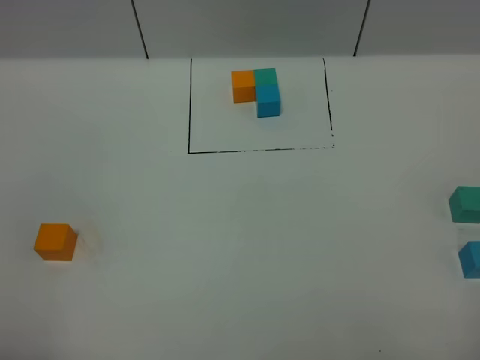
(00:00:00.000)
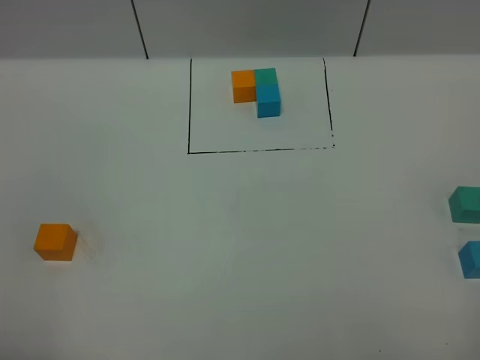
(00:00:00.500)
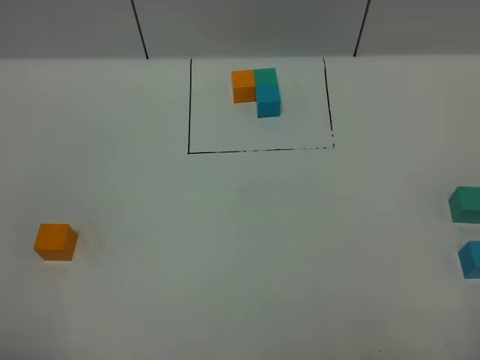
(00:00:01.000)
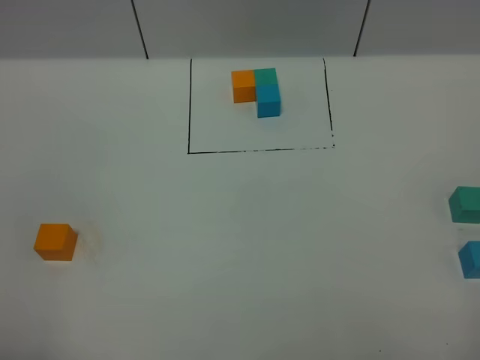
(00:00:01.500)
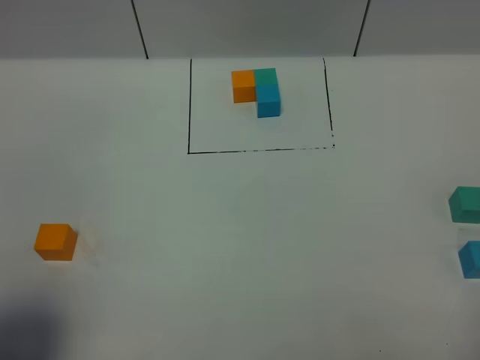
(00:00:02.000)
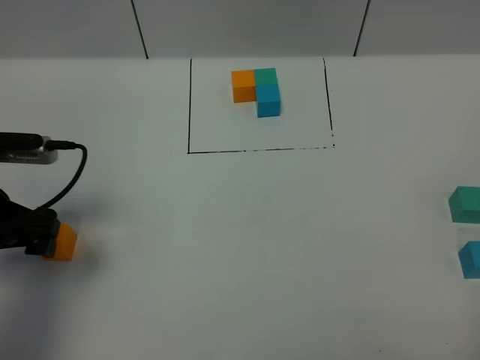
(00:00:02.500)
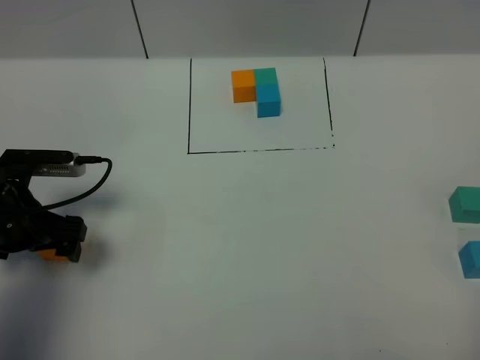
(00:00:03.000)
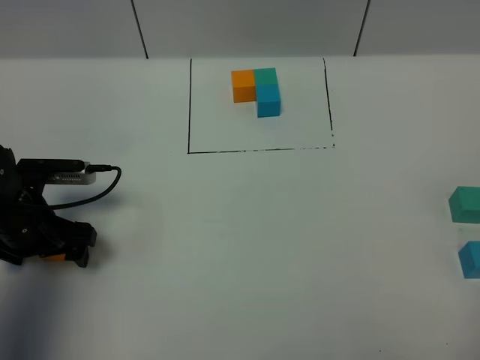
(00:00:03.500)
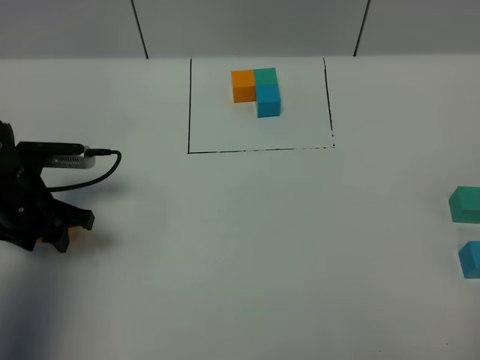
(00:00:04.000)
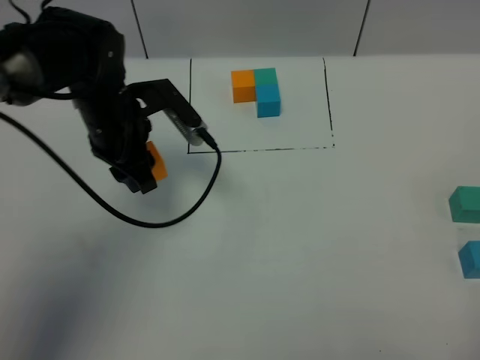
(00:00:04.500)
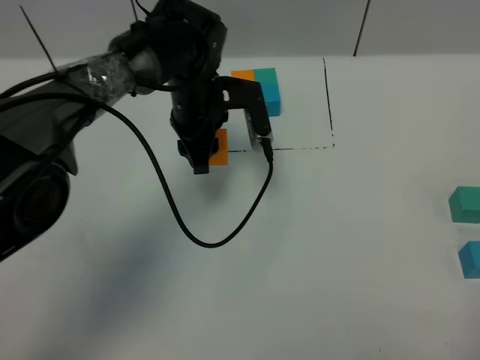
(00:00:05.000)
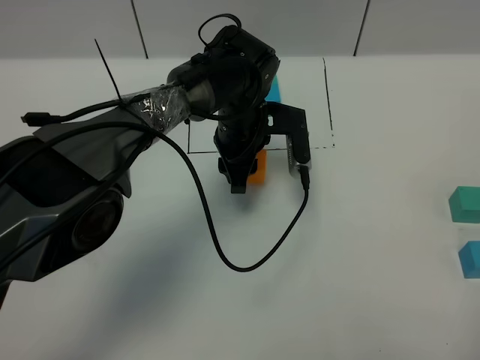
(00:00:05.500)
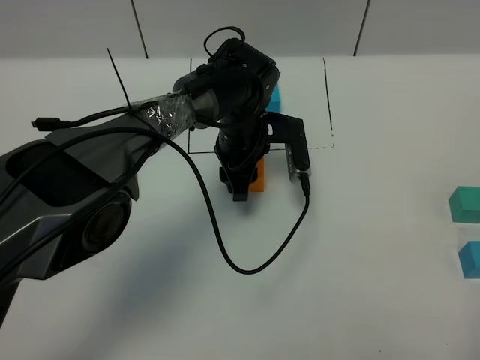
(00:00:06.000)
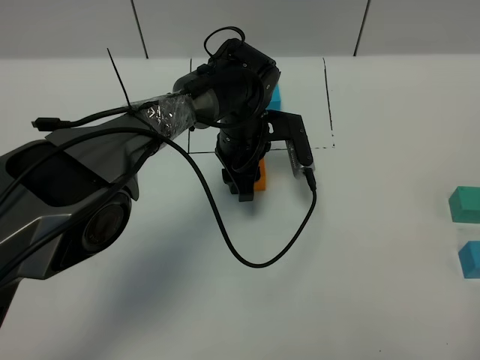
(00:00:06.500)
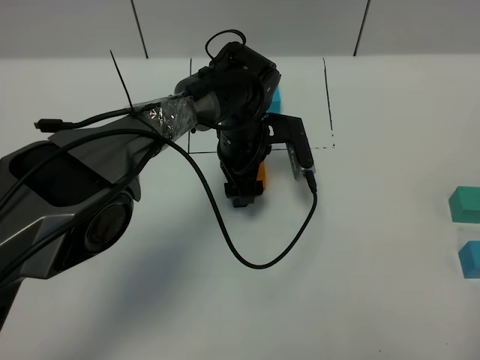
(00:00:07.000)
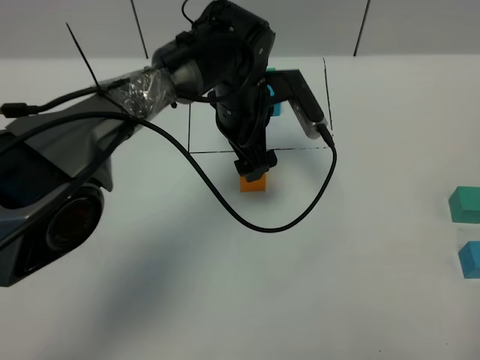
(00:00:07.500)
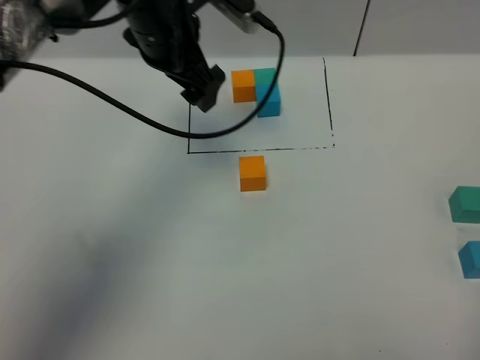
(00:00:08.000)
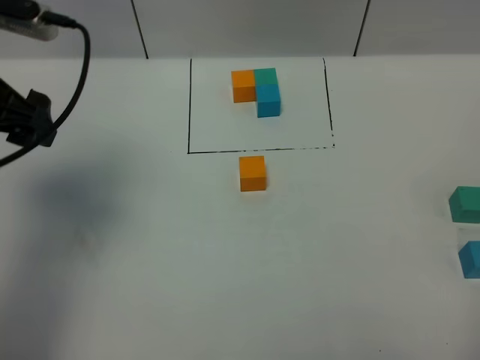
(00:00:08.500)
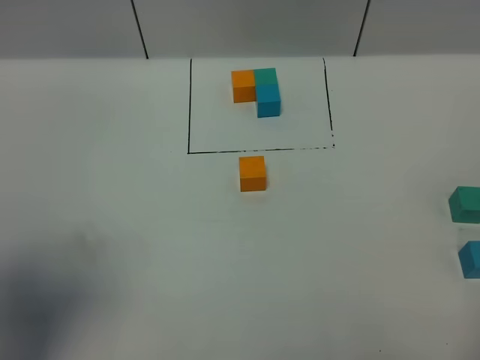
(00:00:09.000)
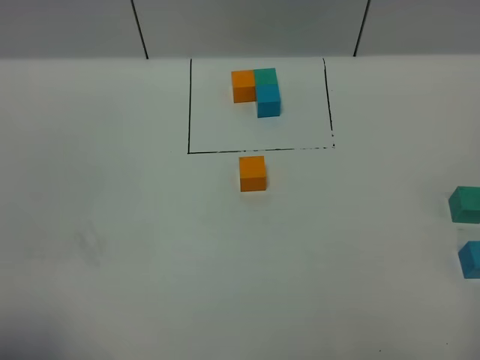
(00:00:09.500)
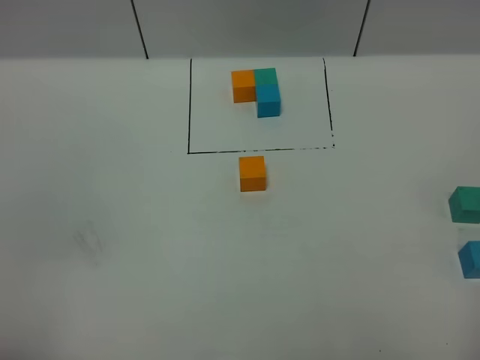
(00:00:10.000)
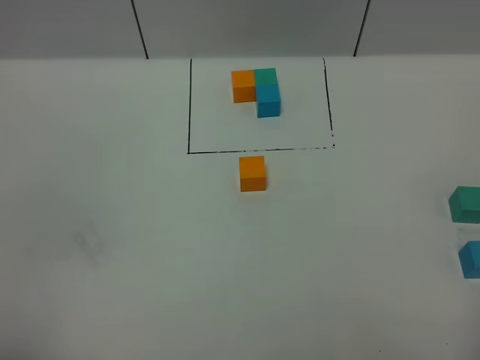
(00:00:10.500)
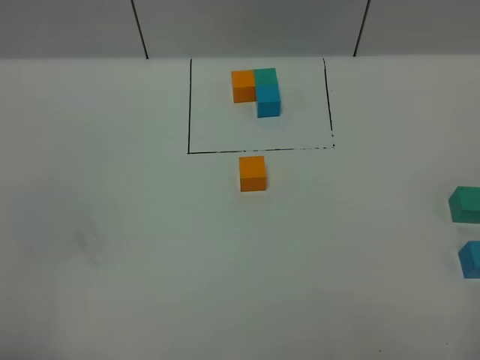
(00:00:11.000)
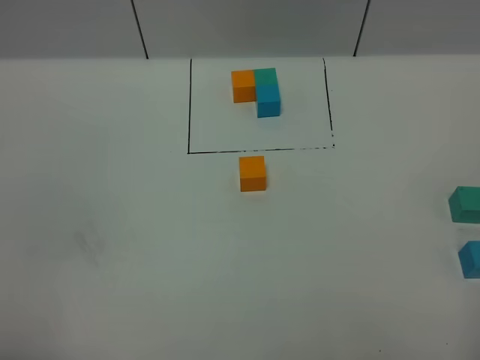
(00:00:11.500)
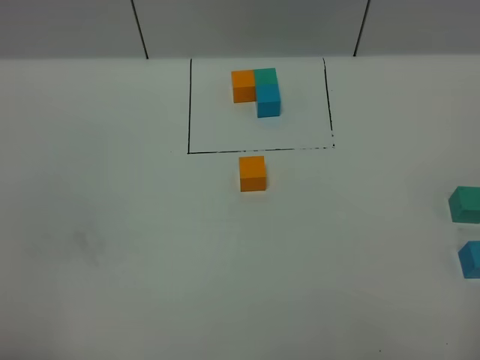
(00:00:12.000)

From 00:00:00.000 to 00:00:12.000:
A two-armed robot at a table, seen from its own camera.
Task of the whole recording: According to the building block template in front, assemble the scattered blocks together.
Step, from 00:00:00.000 to 00:00:07.000: Put the orange build block in the center of the table.
From 00:00:00.000 to 00:00:02.000: The left gripper heads forward, covering about 10 cm.
From 00:00:02.000 to 00:00:04.000: The left gripper travels forward and downward by approximately 25 cm, and closes.
From 00:00:04.000 to 00:00:06.000: The left gripper shifts roughly 30 cm to the right and forward.
From 00:00:06.000 to 00:00:08.000: The left gripper travels upward and to the left by about 20 cm, and opens.
From 00:00:08.000 to 00:00:10.000: The left gripper moves backward and to the left, about 50 cm.

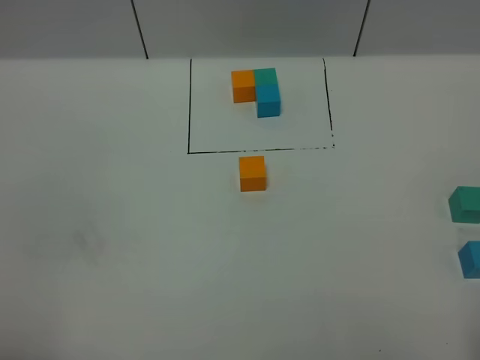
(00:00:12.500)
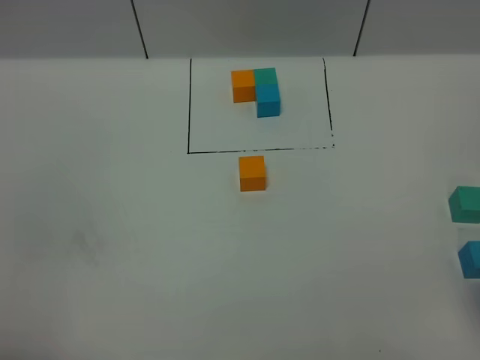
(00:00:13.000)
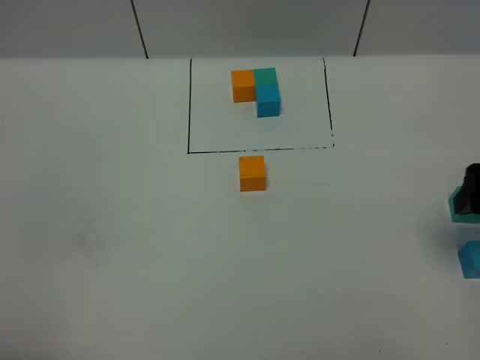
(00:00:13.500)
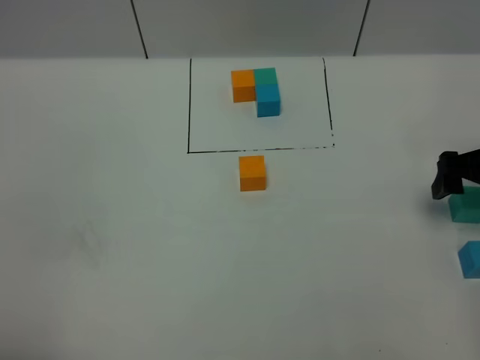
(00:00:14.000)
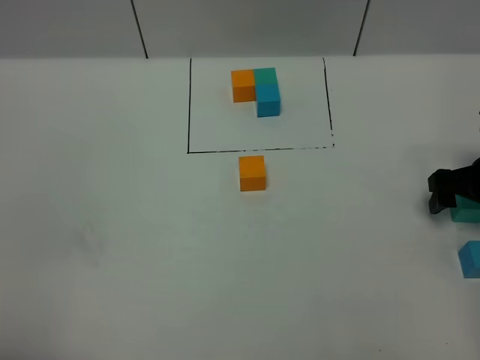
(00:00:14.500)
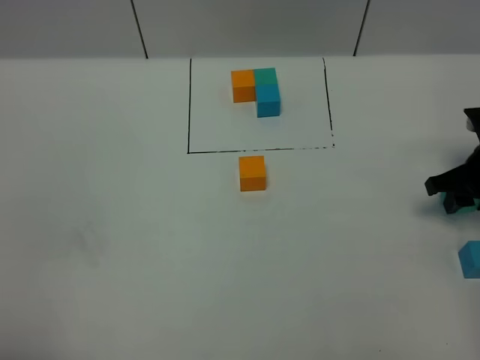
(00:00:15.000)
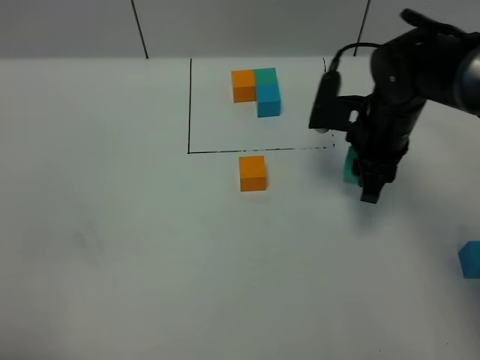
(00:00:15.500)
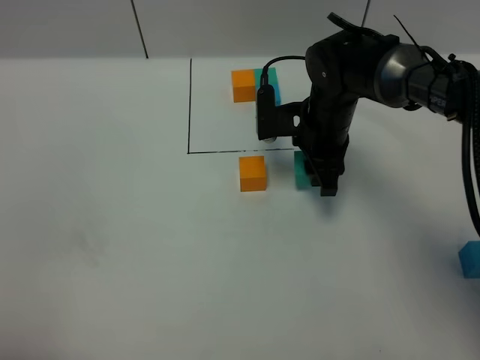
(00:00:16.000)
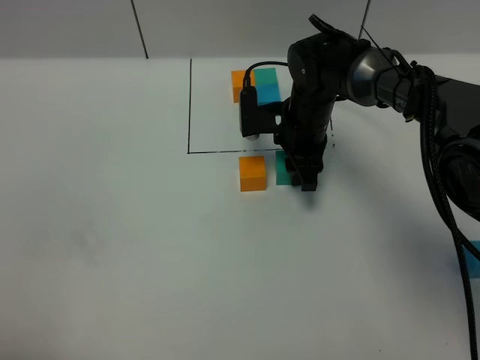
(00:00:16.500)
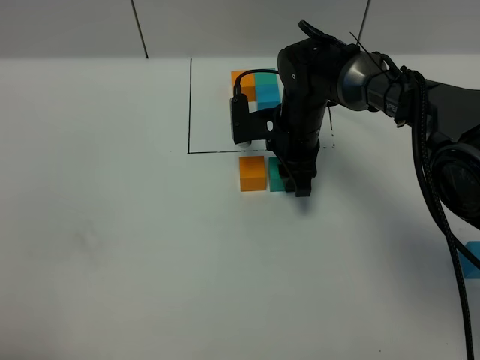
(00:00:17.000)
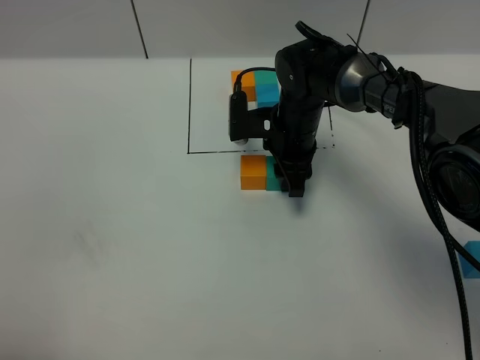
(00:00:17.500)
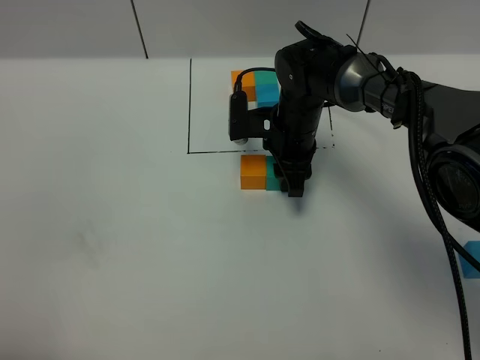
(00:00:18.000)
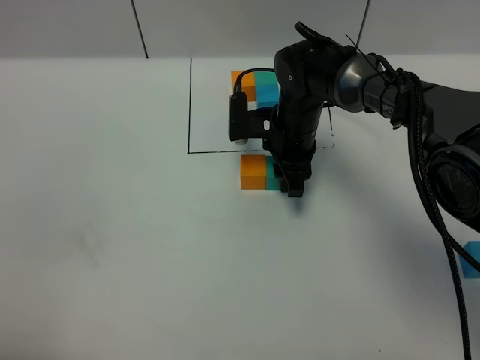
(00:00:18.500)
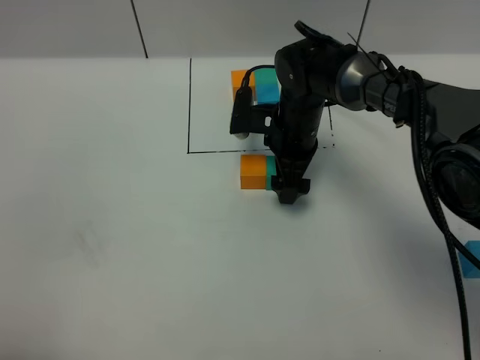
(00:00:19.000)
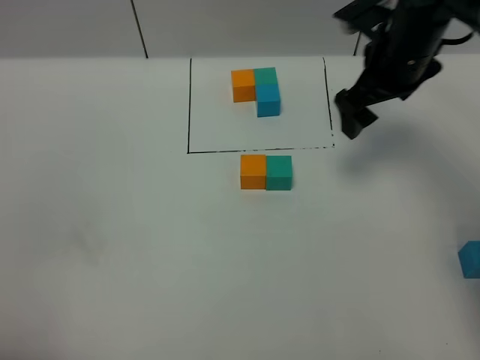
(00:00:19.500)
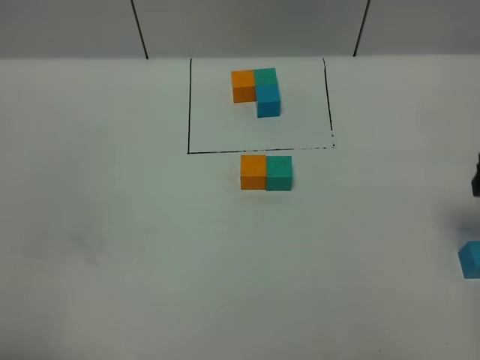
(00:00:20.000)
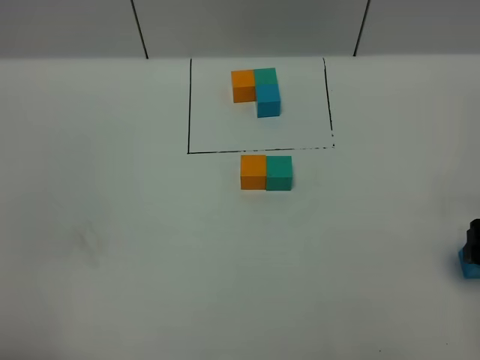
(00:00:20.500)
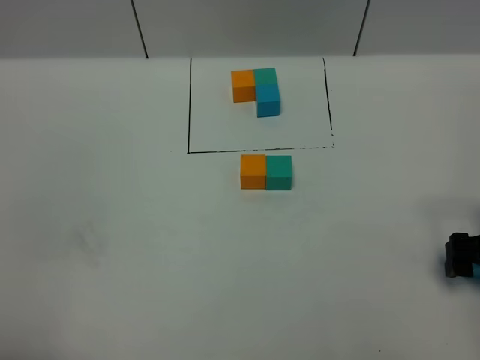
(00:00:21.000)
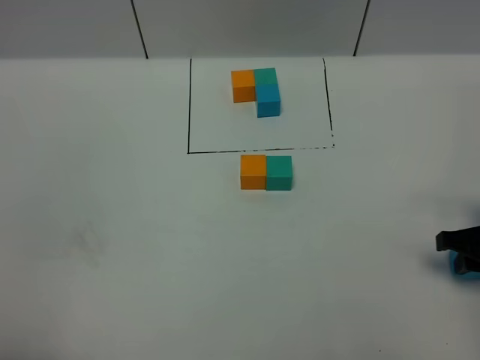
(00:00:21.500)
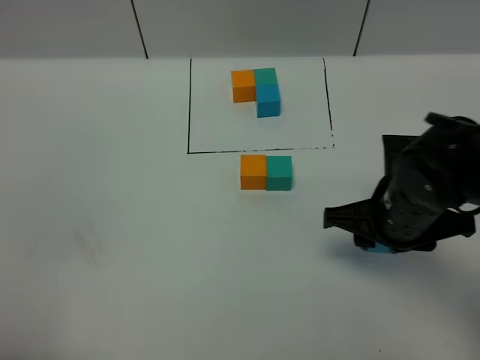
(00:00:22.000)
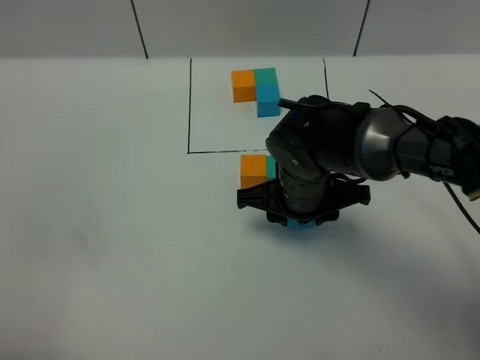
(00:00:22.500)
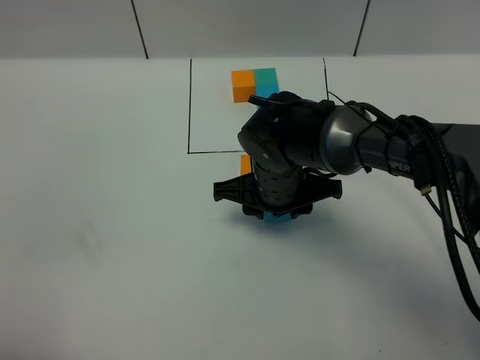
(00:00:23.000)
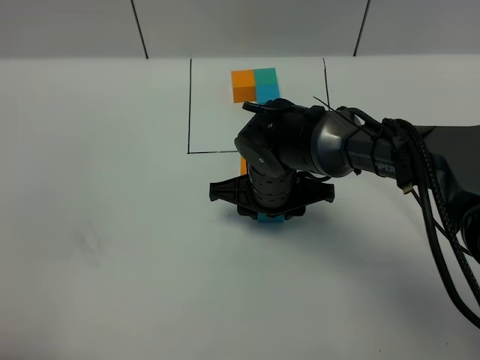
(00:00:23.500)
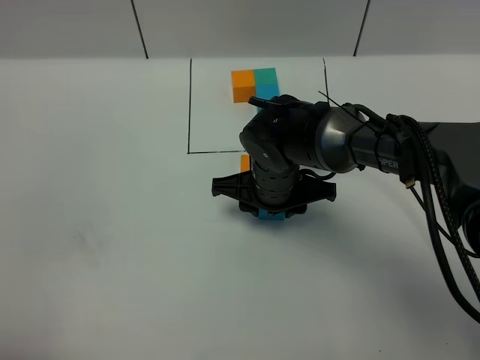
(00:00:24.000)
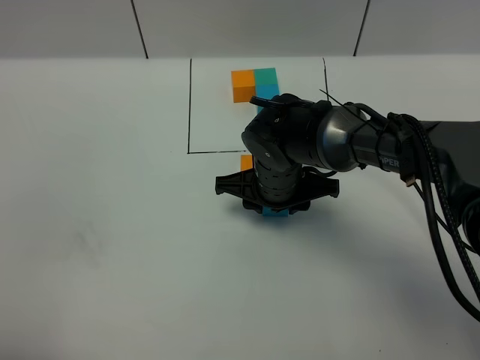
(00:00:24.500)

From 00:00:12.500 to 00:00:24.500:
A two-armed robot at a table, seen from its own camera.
Task of the whole recording: According to the building block template in front, assemble the scattered blocks together.
Step, from 00:00:12.500 to 00:00:19.000: Put the green build block on the right of the orange build block.
From 00:00:12.500 to 00:00:14.500: The right gripper heads forward and downward, covering approximately 35 cm.
From 00:00:14.500 to 00:00:16.500: The right gripper heads to the left and forward, covering about 25 cm, and closes up.
From 00:00:16.500 to 00:00:18.500: The grippers stay close to where they were, moving slightly.
From 00:00:18.500 to 00:00:20.500: The right gripper heads to the right and backward, covering some 35 cm, and opens.
From 00:00:20.500 to 00:00:22.500: The right gripper shifts roughly 25 cm to the left, and closes.
From 00:00:22.500 to 00:00:24.500: The grippers move only a little.

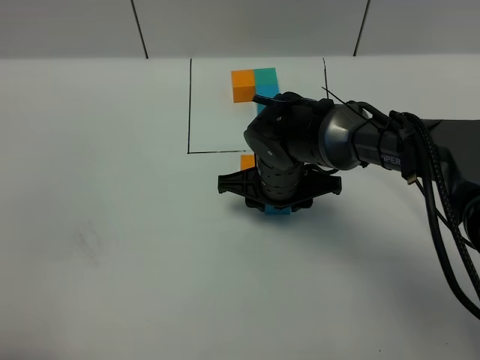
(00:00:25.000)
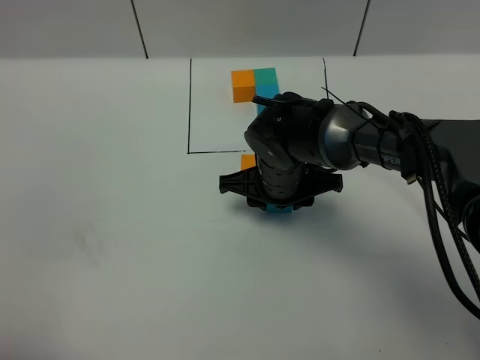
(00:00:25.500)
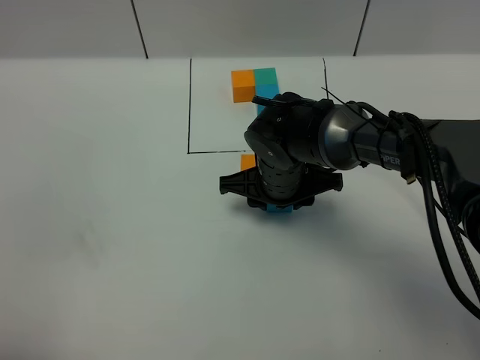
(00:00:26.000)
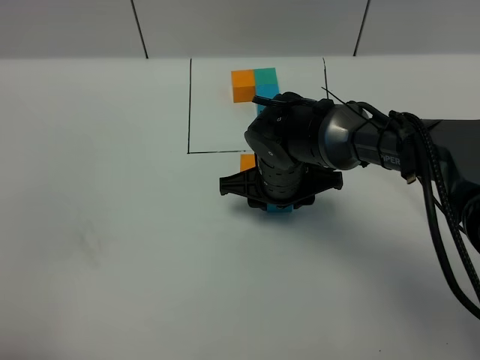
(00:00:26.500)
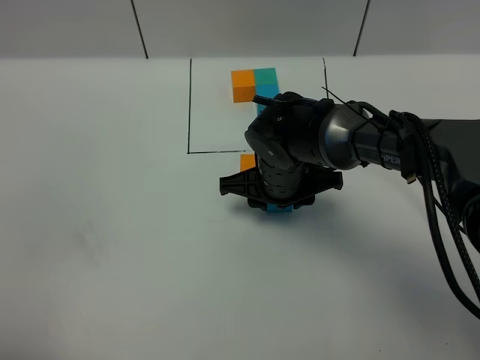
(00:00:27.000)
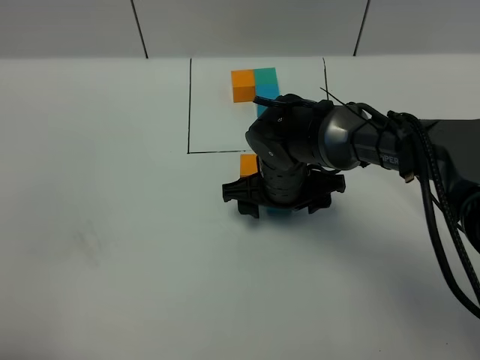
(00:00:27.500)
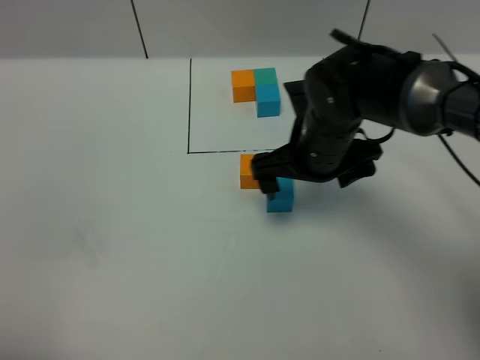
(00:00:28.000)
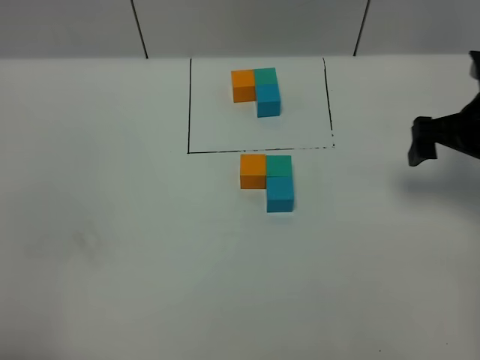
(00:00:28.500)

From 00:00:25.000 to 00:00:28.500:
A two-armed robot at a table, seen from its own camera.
Task of the whole recording: According to the building block template in front, assemble the scattered blocks together.
From 00:00:25.000 to 00:00:27.000: The two grippers keep their place.
From 00:00:27.000 to 00:00:28.500: The right gripper shifts some 25 cm to the right, and opens its fingers.
